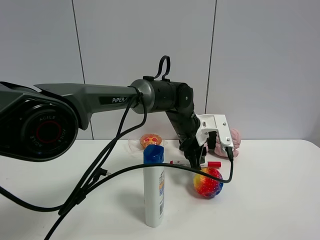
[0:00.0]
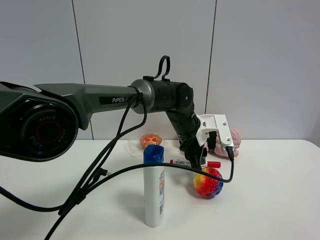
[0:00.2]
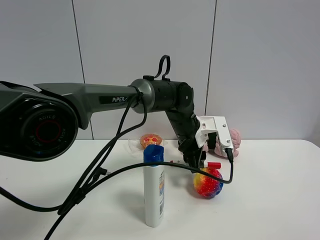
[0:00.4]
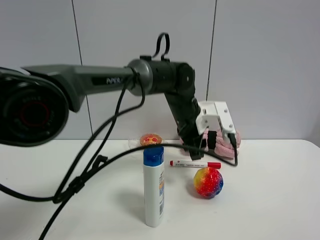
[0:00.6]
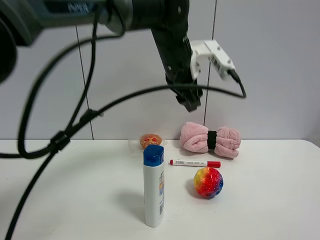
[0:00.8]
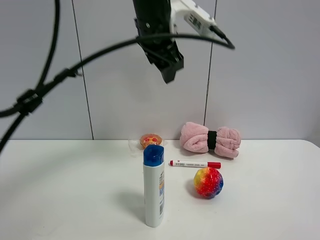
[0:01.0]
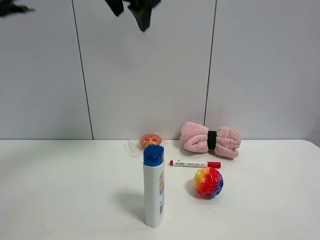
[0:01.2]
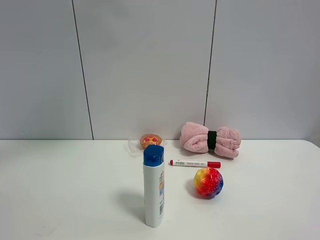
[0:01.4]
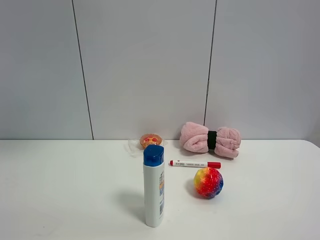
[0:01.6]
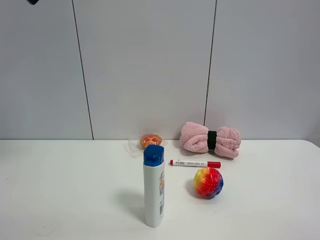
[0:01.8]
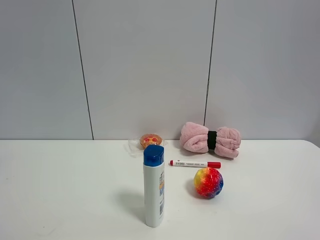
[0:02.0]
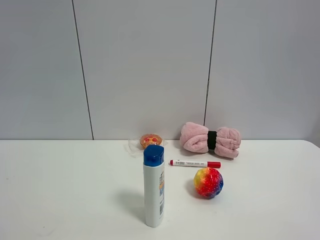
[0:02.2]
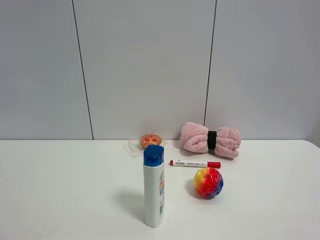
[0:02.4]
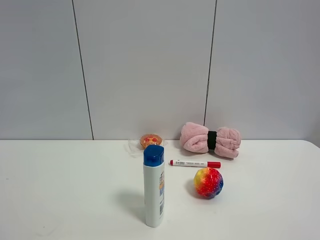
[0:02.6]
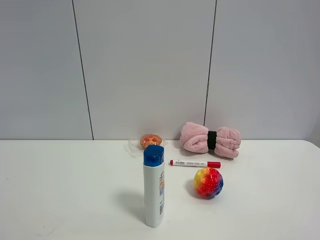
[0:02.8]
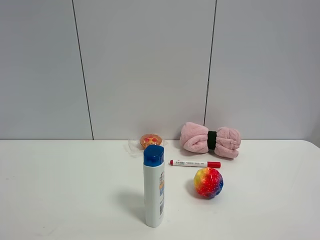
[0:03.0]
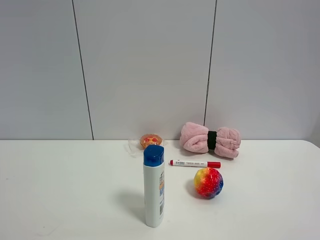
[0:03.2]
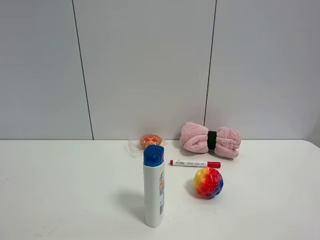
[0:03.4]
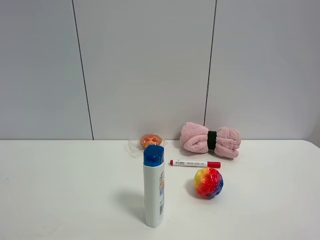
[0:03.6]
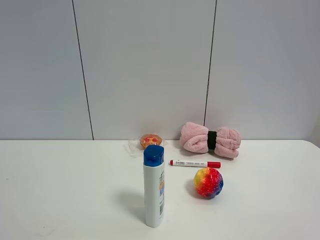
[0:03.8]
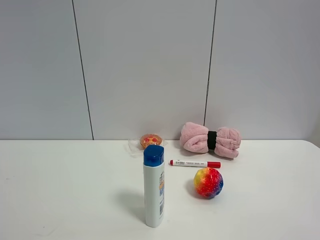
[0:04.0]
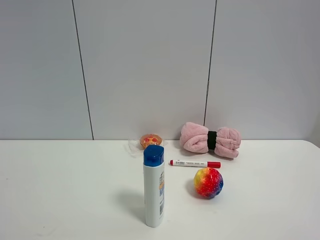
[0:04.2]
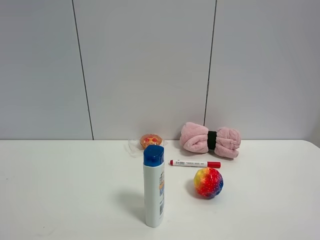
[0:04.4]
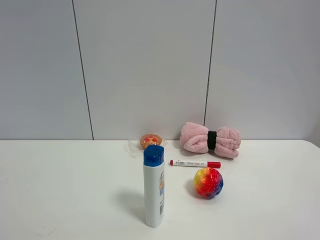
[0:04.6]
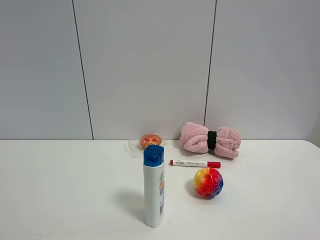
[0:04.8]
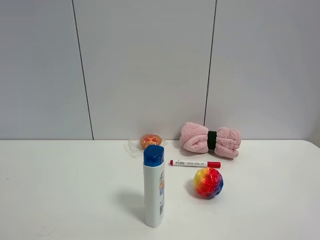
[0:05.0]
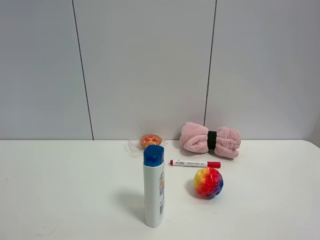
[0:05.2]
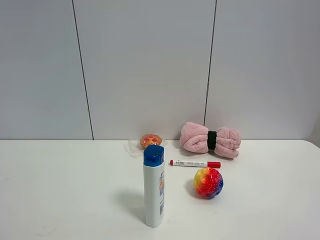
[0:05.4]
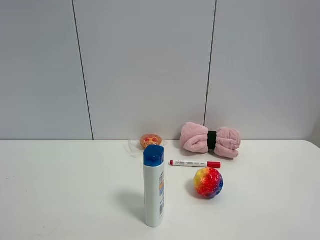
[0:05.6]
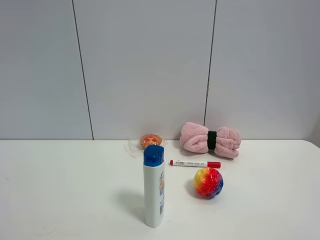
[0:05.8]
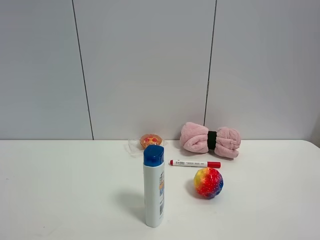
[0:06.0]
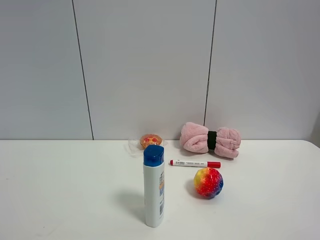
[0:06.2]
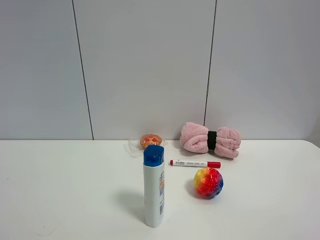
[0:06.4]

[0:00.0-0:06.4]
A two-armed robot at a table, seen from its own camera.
Task of the whole recording: the gripper move the object.
0:00.0 to 0:01.6: The left gripper moves upward and to the left, roughly 50 cm, and opens up.
0:01.6 to 0:03.2: The left gripper travels backward and downward by some 35 cm.
0:04.8 to 0:06.4: The two grippers keep their place.

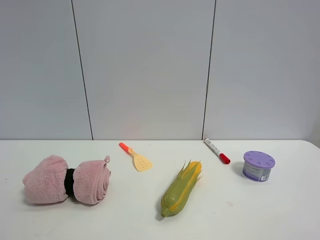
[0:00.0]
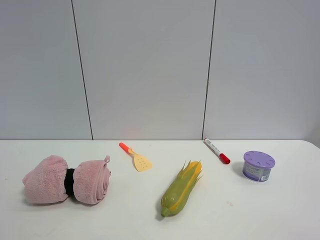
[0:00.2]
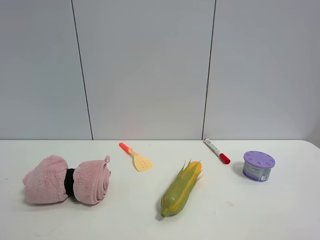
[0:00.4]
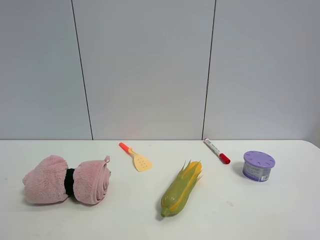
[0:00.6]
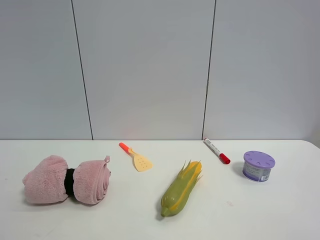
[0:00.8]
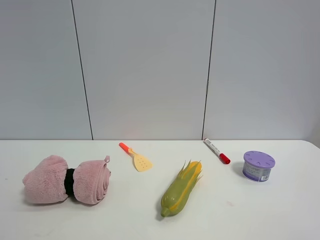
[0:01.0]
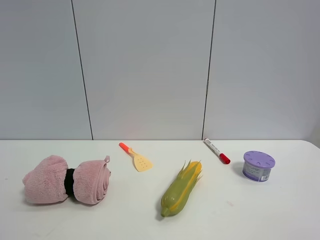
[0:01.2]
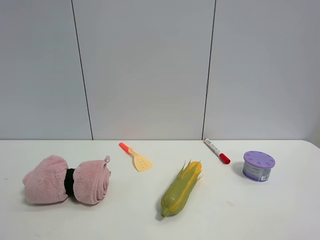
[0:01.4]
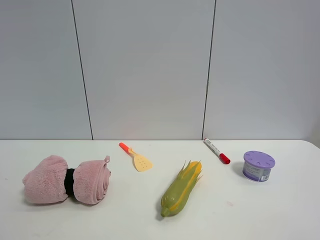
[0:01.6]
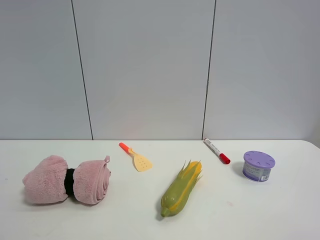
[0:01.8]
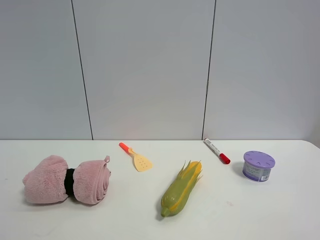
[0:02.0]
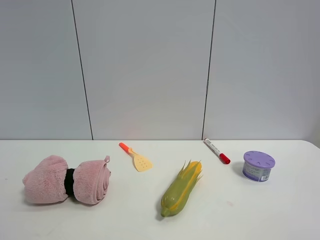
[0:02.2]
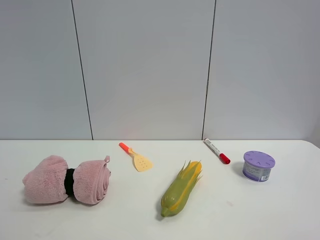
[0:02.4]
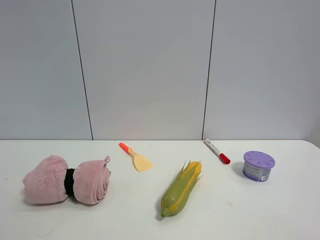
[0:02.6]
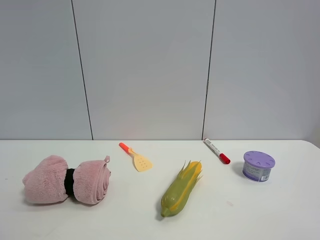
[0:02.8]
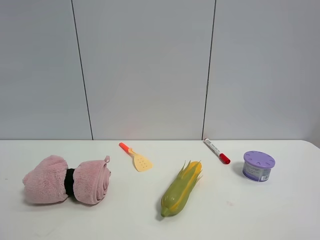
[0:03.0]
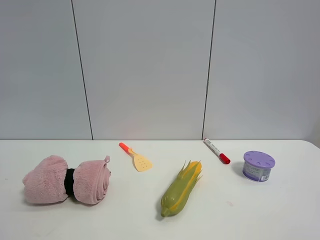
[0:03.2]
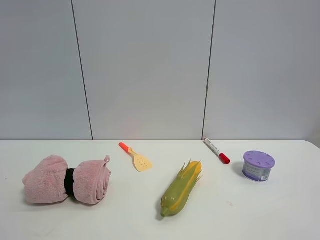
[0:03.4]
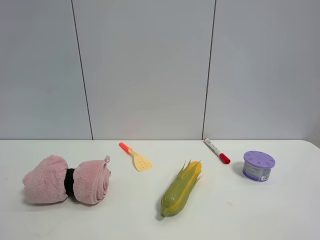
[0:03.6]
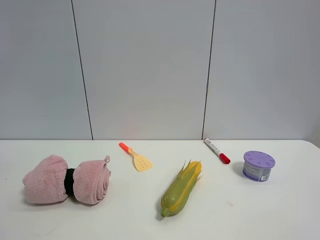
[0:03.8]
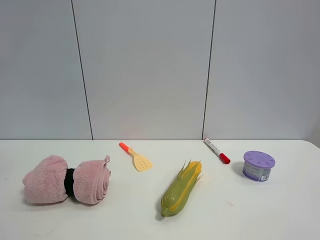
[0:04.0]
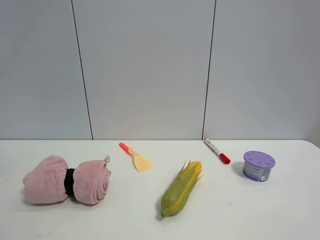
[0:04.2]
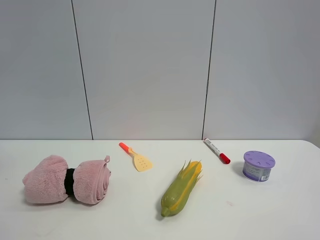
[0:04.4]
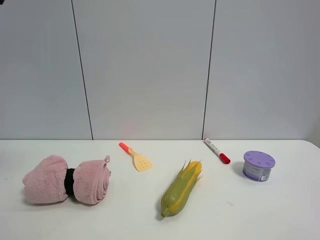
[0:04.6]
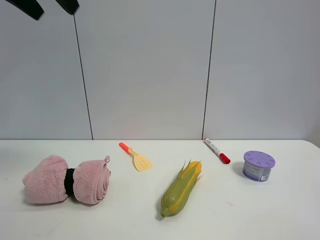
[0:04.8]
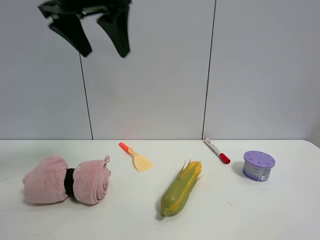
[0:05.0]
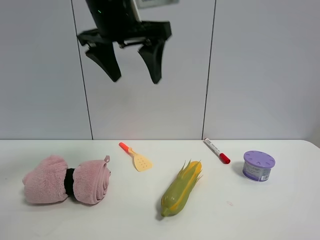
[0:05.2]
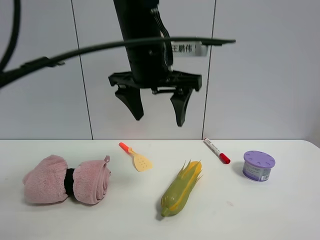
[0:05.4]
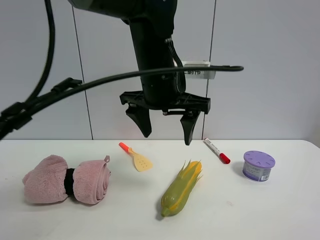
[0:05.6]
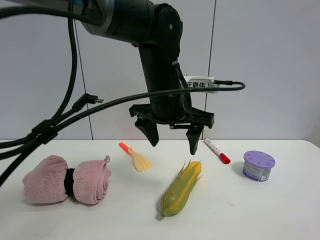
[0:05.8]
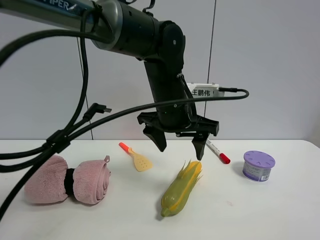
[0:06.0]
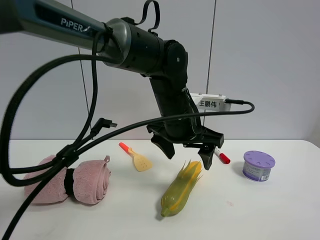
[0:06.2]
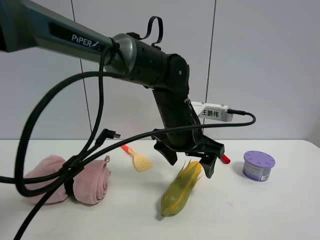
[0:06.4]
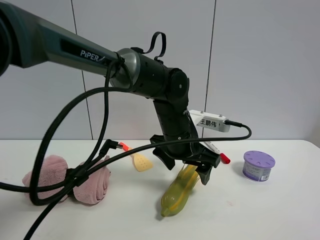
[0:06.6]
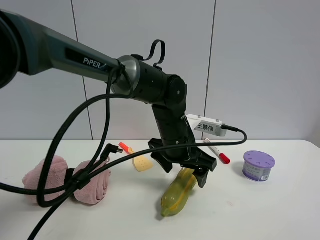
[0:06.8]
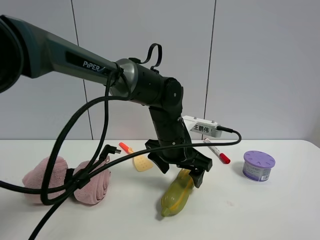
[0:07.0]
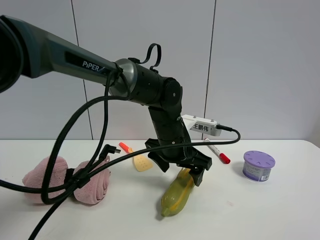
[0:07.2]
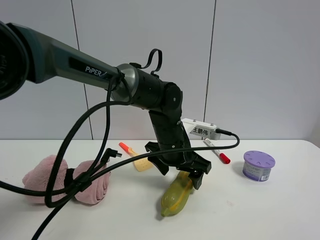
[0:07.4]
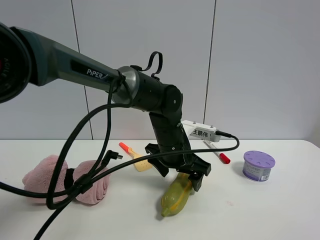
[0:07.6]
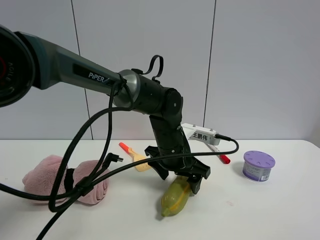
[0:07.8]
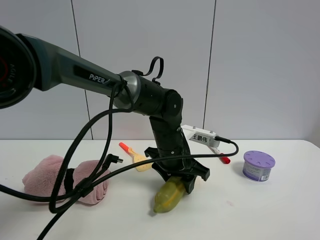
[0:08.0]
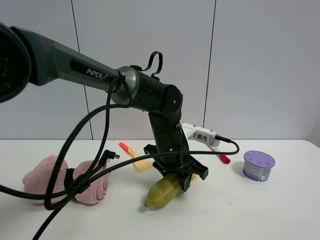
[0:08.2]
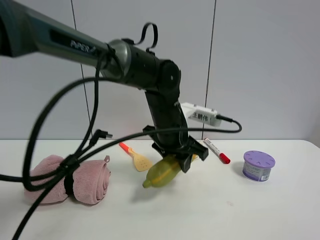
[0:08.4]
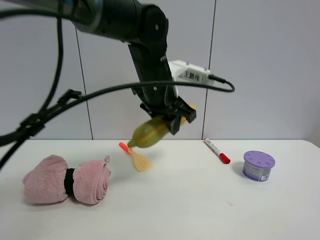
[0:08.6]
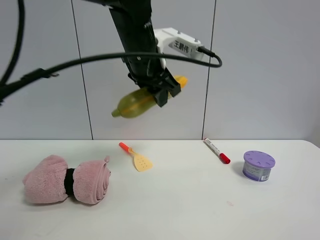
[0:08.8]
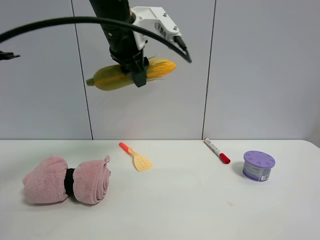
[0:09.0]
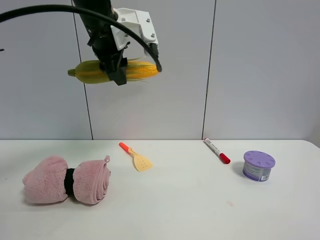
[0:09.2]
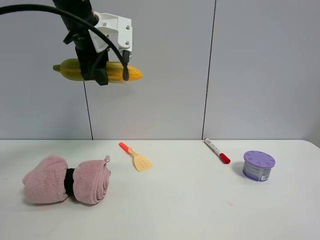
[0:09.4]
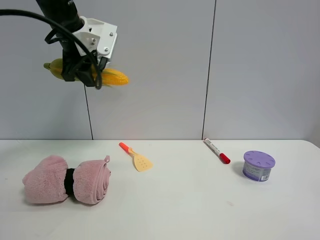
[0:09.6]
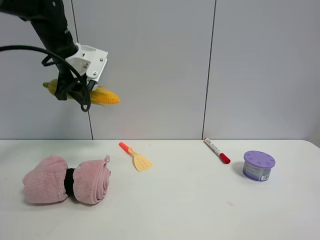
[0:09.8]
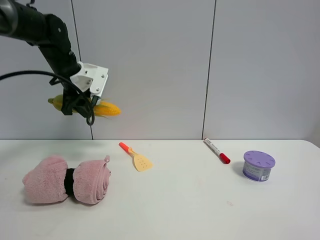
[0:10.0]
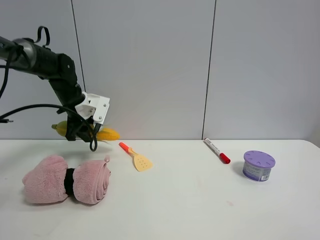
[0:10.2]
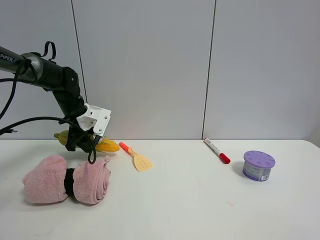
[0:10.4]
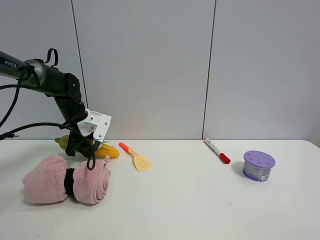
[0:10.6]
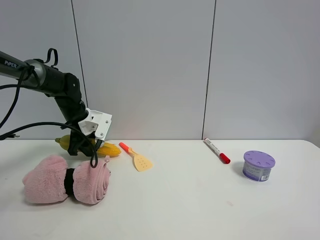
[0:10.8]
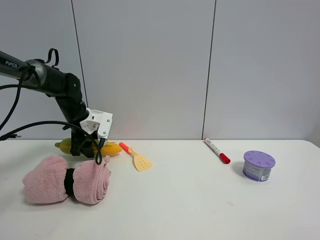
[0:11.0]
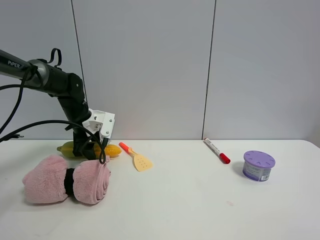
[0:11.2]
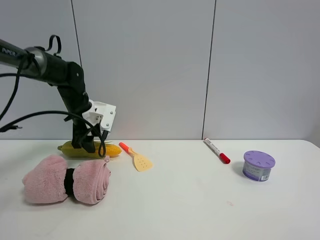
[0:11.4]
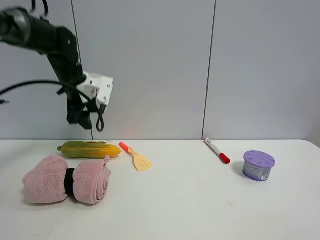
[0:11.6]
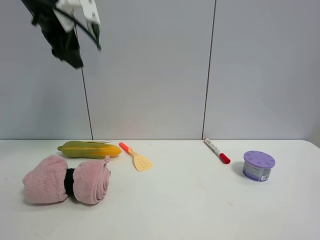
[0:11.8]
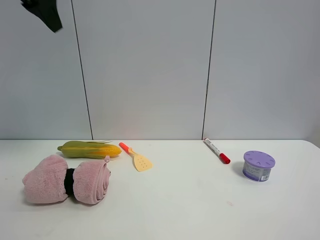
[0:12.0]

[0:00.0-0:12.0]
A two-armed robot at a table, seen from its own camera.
Task of the whole recording: the gripper move the object.
Step, 0:00.0 to 0:08.0: Grasp the corn with the left gripper.
Step, 0:08.2 to 0:11.4: Place the corn on the table with the left gripper.
0:00.0 to 0:01.6: Both grippers stay put.
0:04.4 to 0:06.0: The left gripper shifts some 40 cm to the right and downward.
0:06.0 to 0:07.6: The left gripper goes some 10 cm downward.
0:07.6 to 0:09.0: The left gripper heads upward and to the left, covering some 25 cm, and closes.
0:09.0 to 0:10.4: The left gripper is displaced downward, to the left and forward by some 30 cm.
0:10.4 to 0:12.0: The left gripper goes roughly 35 cm upward and backward, and opens up.

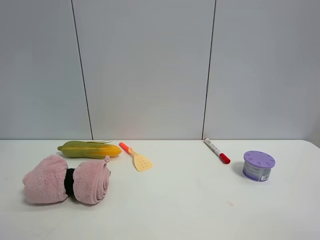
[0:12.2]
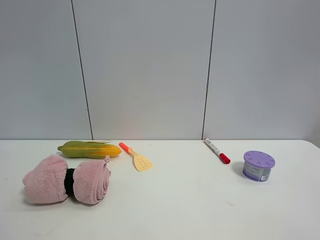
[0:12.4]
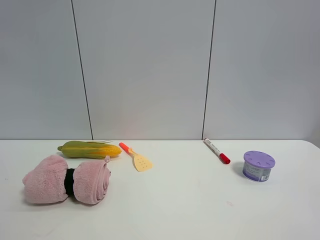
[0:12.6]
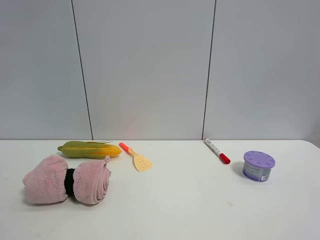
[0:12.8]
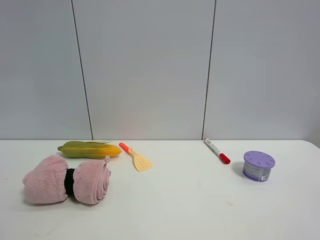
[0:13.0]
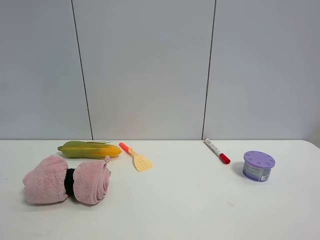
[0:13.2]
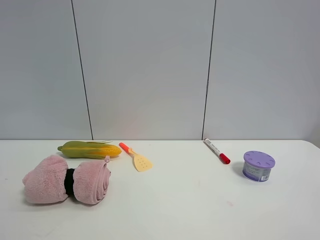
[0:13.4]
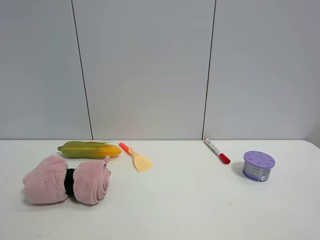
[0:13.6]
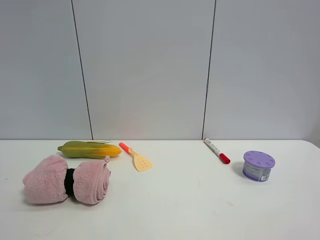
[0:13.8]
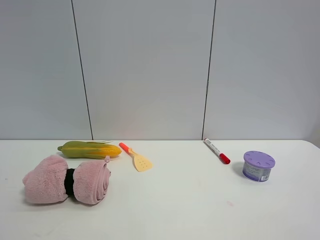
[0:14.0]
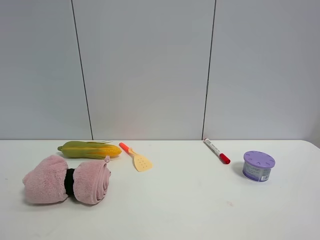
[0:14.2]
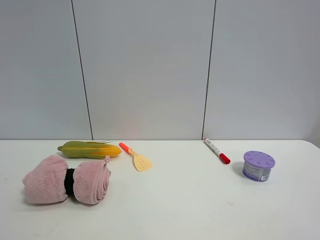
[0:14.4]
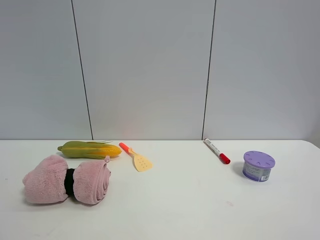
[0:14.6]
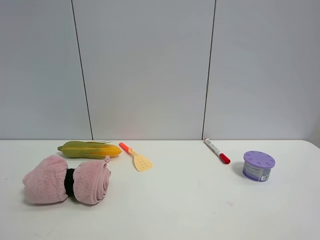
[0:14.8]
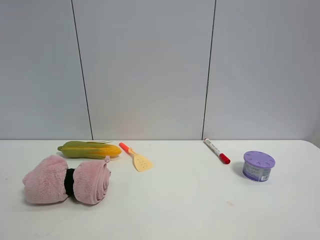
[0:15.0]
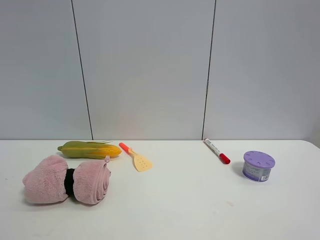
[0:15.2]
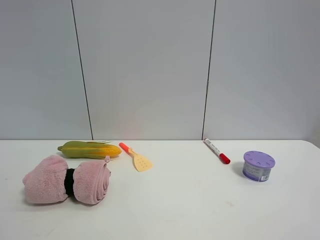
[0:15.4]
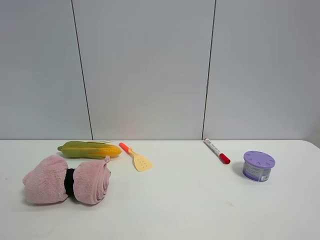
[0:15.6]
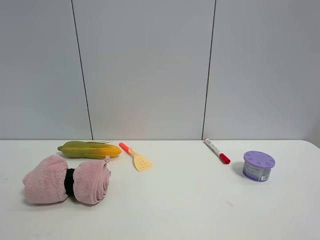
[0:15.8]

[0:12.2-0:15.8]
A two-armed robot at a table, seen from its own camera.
Task of the whole recording: the gripper move the object.
0:14.0 to 0:15.8: Both grippers stay about where they are.
